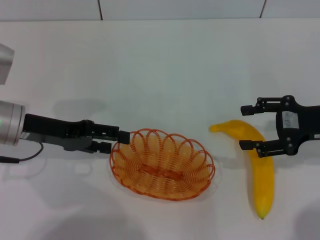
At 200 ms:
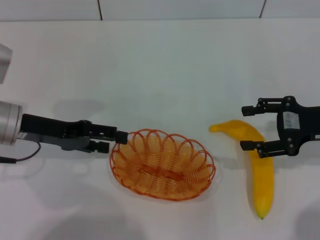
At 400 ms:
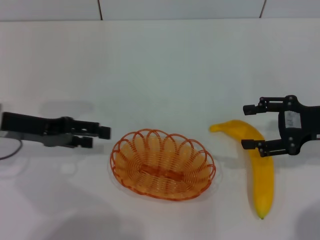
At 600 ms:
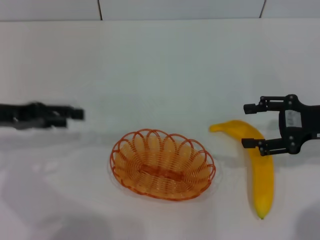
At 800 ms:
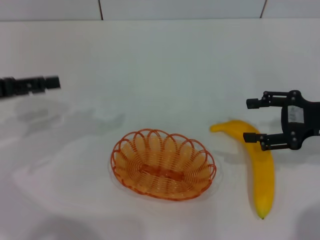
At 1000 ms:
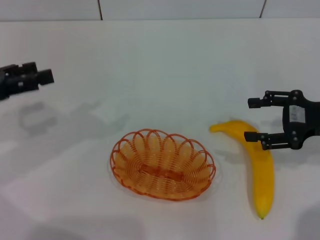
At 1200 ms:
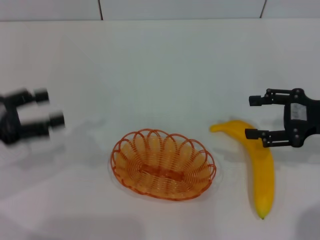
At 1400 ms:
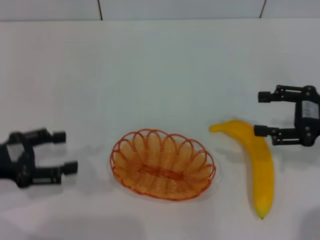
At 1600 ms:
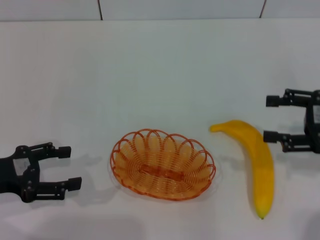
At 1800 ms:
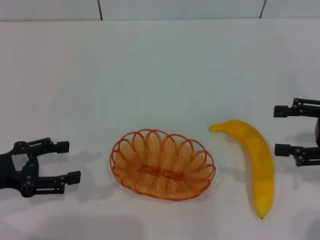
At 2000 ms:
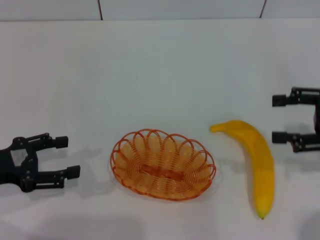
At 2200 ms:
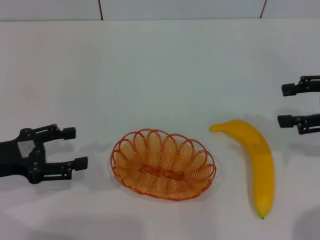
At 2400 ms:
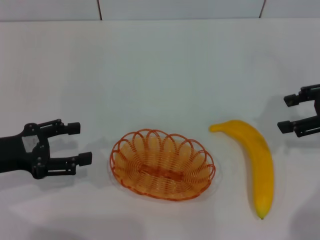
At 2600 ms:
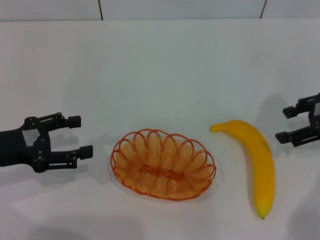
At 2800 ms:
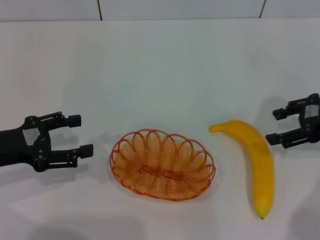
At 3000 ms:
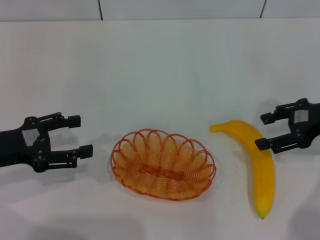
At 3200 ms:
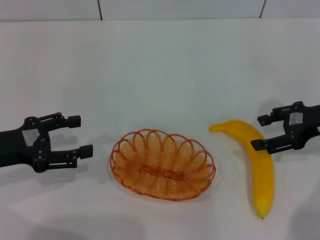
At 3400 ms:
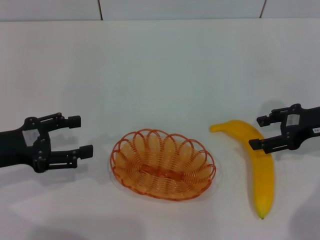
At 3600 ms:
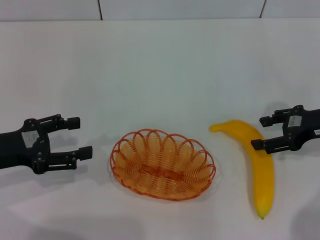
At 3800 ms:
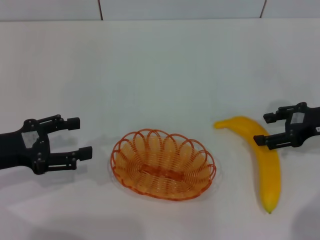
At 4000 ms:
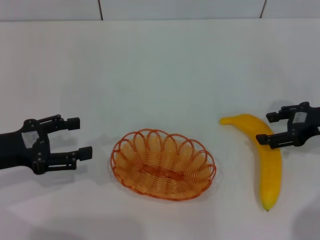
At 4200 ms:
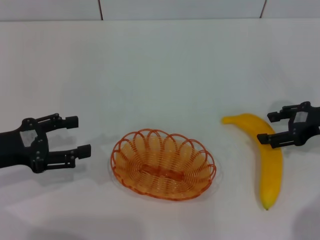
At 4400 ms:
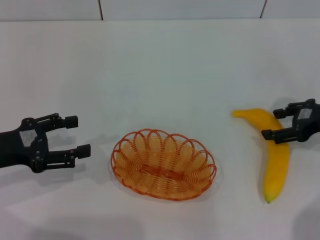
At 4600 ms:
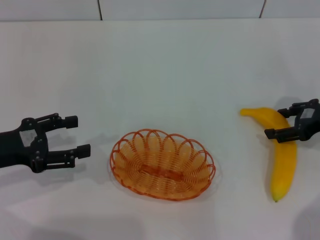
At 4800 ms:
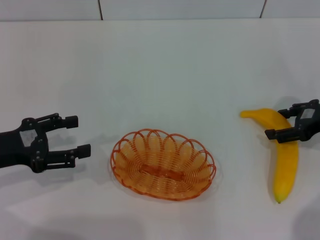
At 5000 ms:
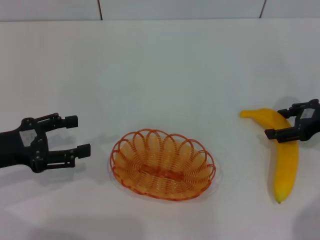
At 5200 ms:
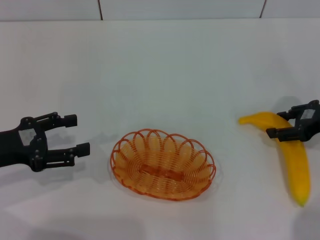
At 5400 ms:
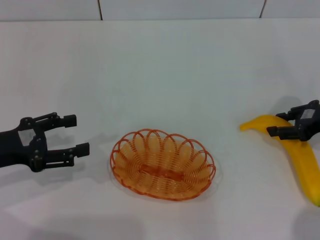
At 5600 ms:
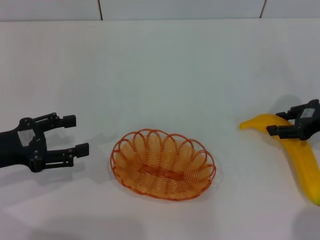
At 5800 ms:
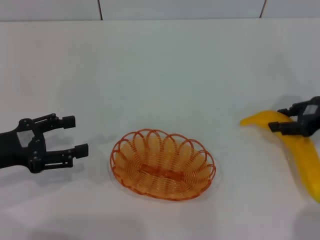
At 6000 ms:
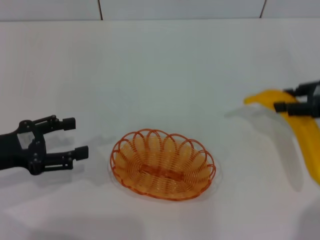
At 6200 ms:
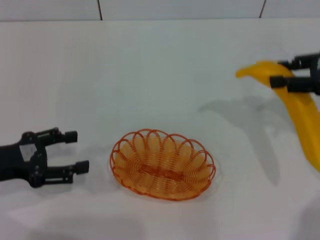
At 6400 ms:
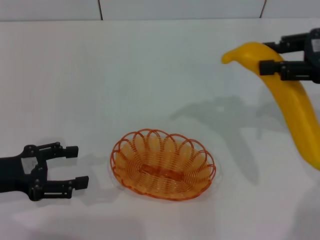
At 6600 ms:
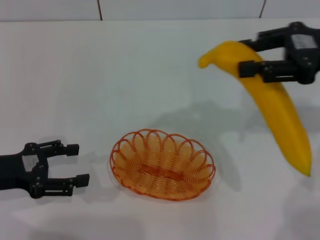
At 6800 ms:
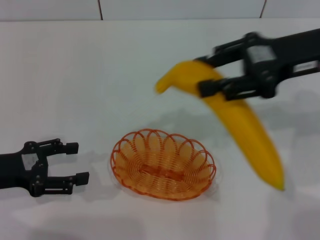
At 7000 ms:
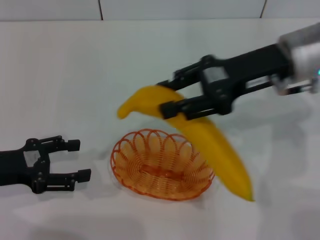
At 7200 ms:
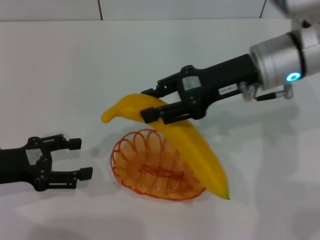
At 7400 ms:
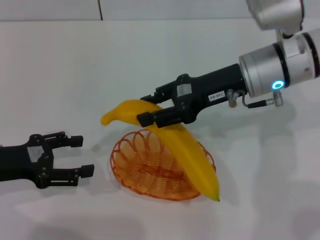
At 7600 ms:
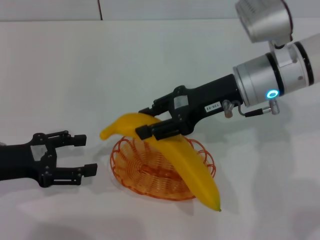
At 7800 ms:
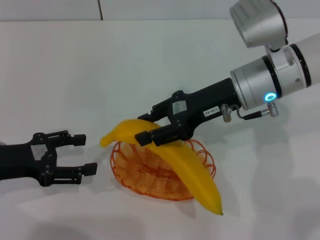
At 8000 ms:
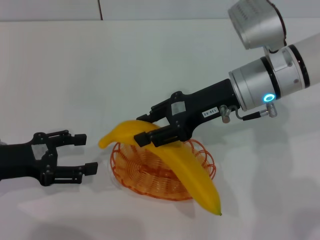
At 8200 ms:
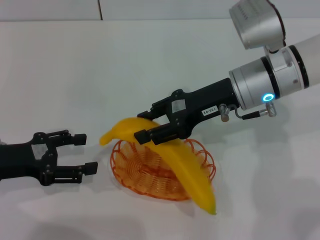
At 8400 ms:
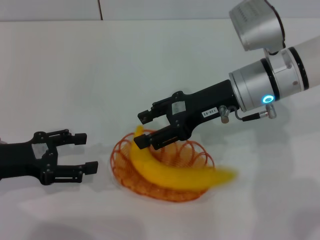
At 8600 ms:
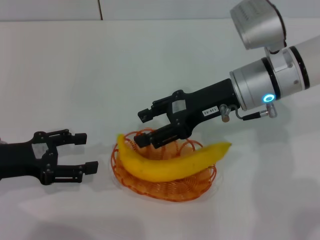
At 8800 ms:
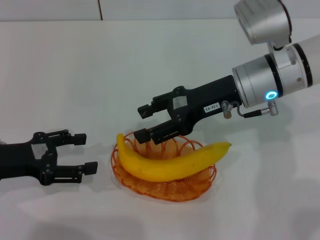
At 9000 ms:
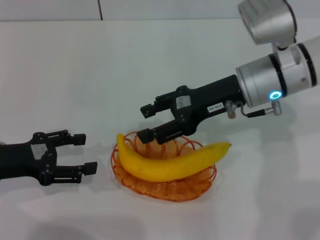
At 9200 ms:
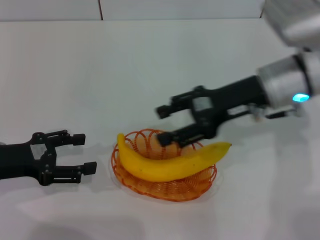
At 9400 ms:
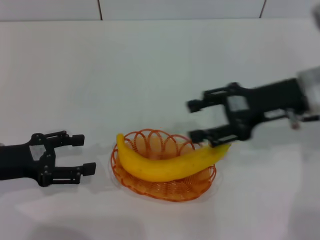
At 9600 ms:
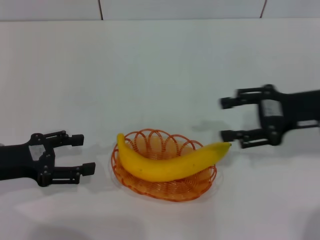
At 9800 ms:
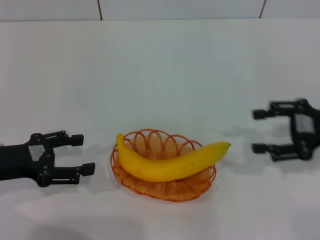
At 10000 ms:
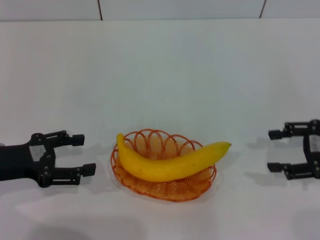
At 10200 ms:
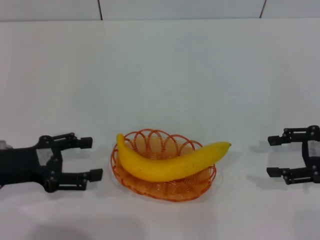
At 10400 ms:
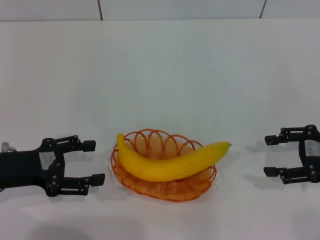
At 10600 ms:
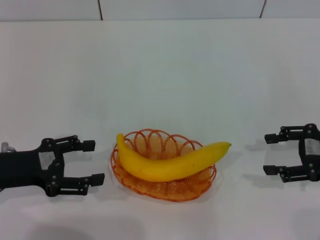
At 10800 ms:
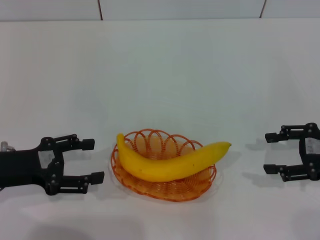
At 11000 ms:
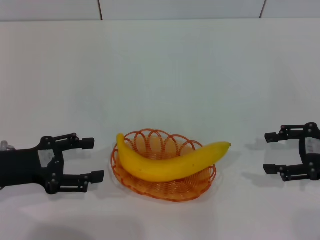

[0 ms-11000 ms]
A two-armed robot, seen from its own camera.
Step, 600 ms to 5800 ms: Pick up the banana with the right gripper.
Step, 6200 ms to 8200 ms: Place the banana into the basket with the right gripper.
0 ms to 1600 ms: The left gripper shifts approximately 10 cm backward and to the left.
1600 ms to 3200 ms: The right gripper changes place by about 5 cm.
3200 ms to 4800 ms: The grippers make only small movements.
4800 ms to 6200 ms: The right gripper travels upward by approximately 10 cm, and closes up.
6200 ms to 7800 ms: The right gripper is displaced to the left by roughly 20 cm.
7800 ms to 9400 ms: The right gripper heads to the right, covering approximately 10 cm, and opens its fingers.
9400 ms to 11000 ms: The right gripper goes approximately 15 cm to the right, backward and downward.
